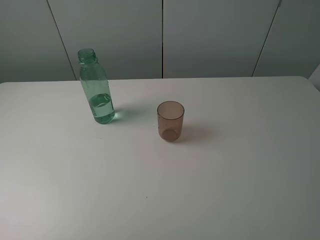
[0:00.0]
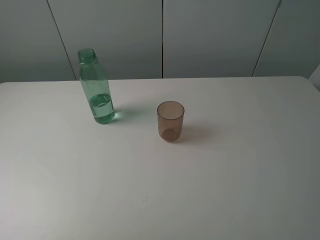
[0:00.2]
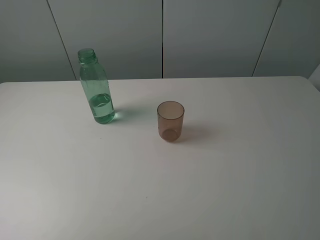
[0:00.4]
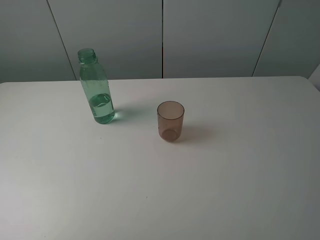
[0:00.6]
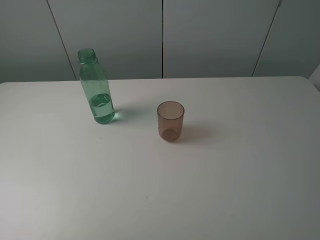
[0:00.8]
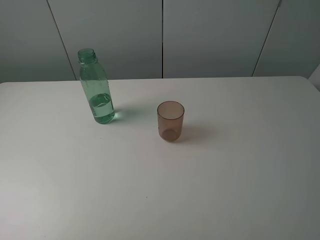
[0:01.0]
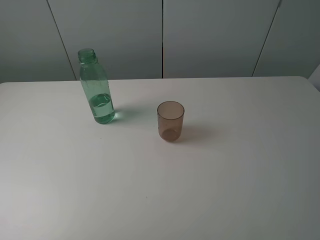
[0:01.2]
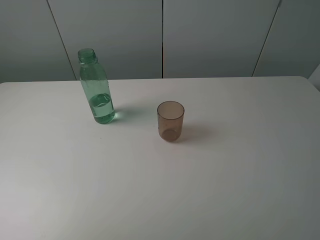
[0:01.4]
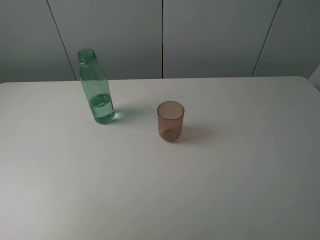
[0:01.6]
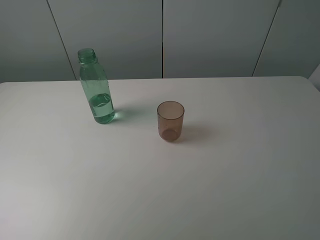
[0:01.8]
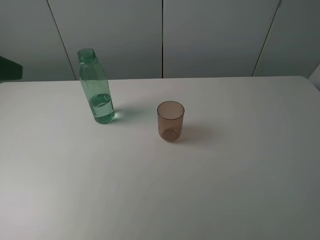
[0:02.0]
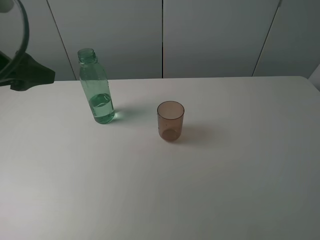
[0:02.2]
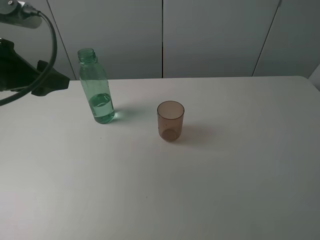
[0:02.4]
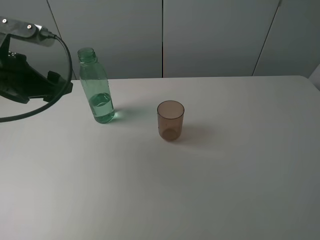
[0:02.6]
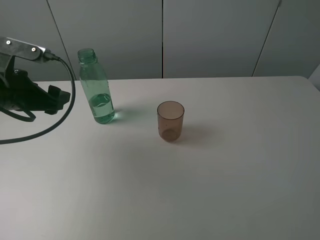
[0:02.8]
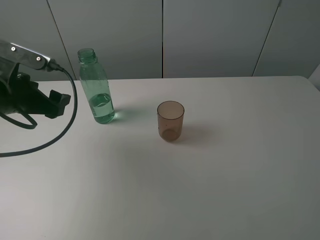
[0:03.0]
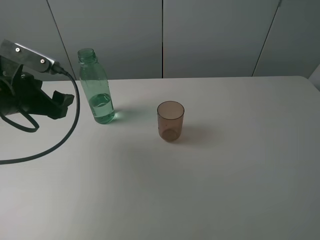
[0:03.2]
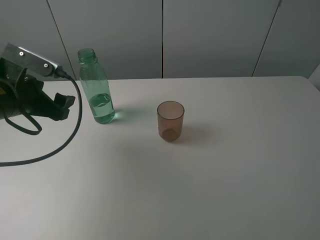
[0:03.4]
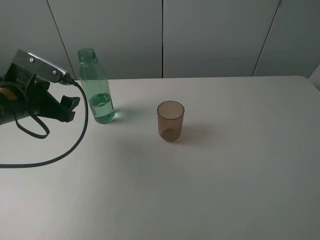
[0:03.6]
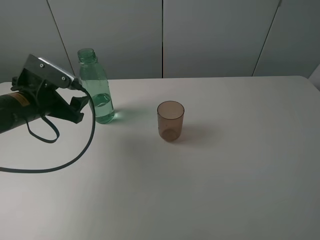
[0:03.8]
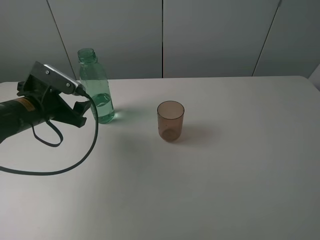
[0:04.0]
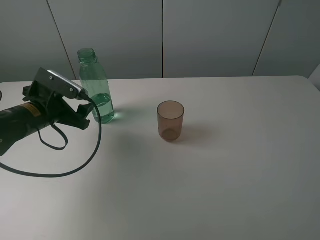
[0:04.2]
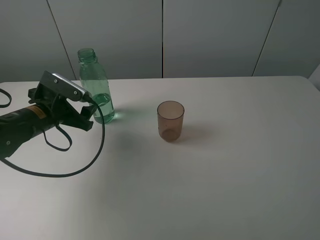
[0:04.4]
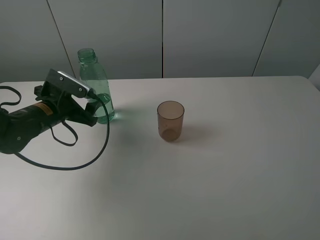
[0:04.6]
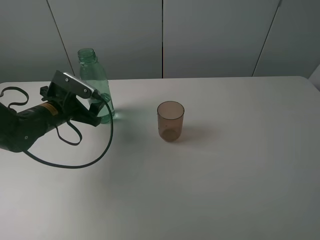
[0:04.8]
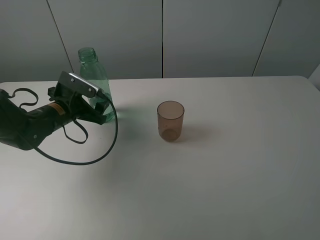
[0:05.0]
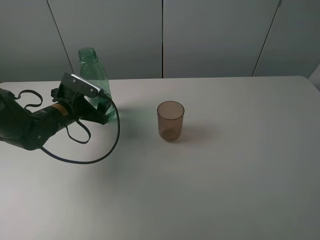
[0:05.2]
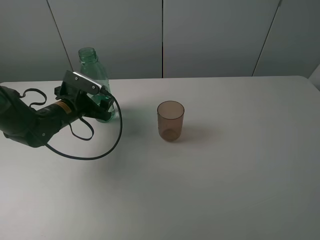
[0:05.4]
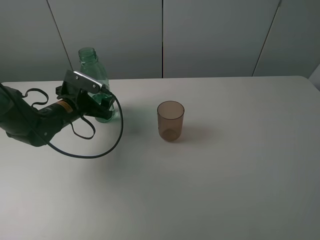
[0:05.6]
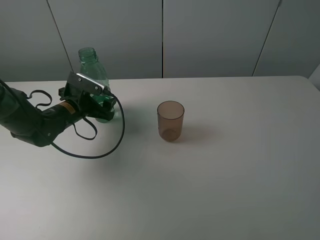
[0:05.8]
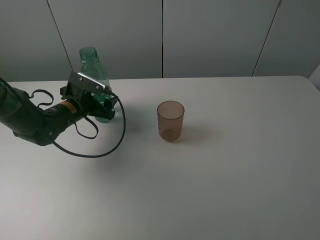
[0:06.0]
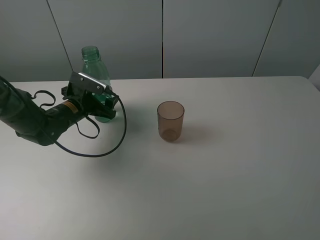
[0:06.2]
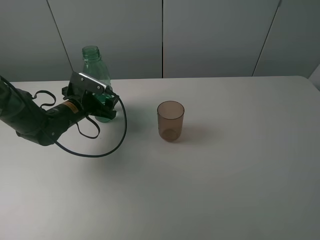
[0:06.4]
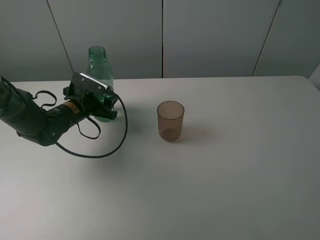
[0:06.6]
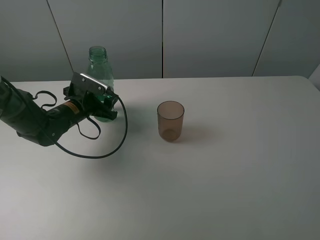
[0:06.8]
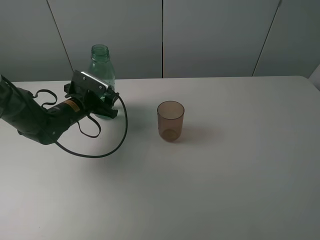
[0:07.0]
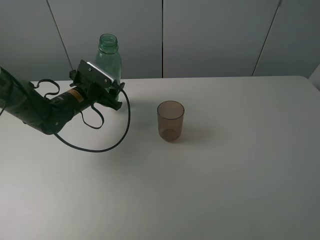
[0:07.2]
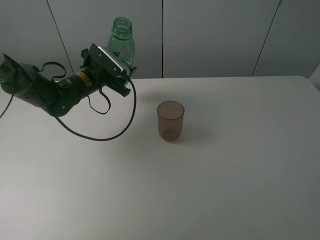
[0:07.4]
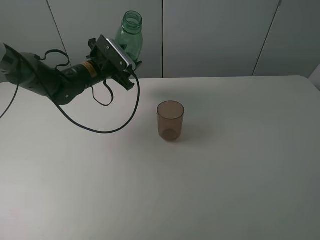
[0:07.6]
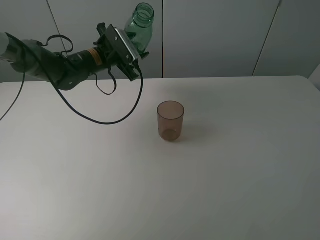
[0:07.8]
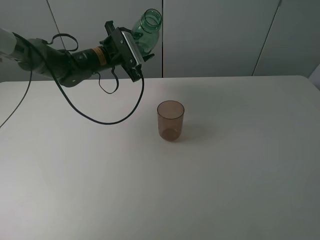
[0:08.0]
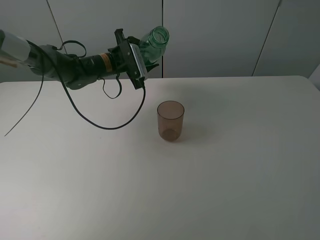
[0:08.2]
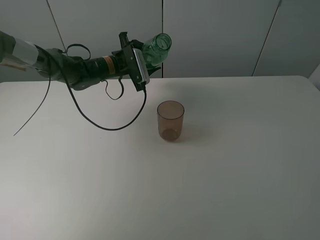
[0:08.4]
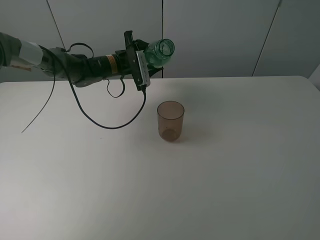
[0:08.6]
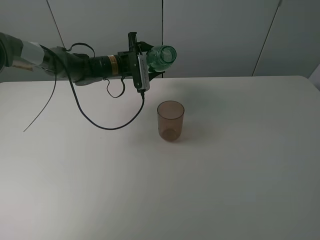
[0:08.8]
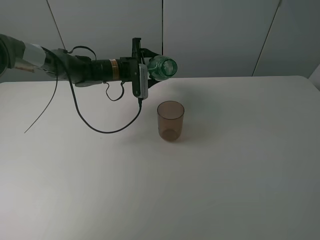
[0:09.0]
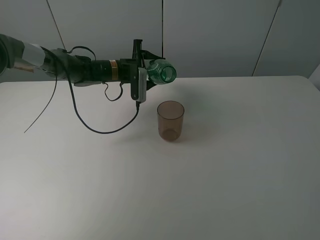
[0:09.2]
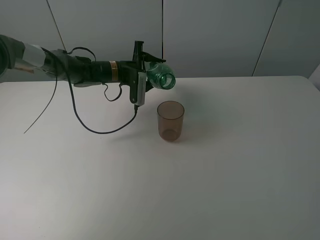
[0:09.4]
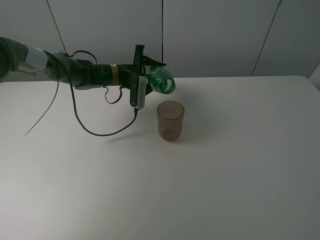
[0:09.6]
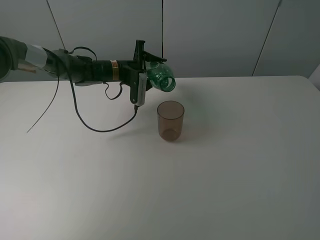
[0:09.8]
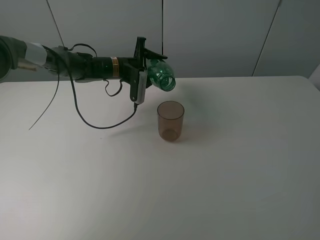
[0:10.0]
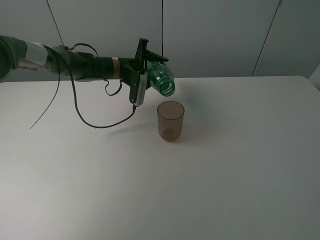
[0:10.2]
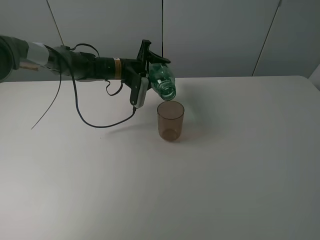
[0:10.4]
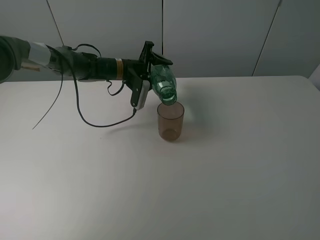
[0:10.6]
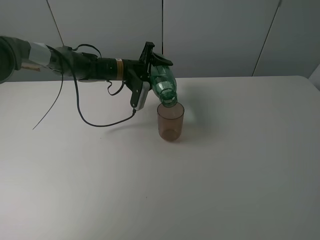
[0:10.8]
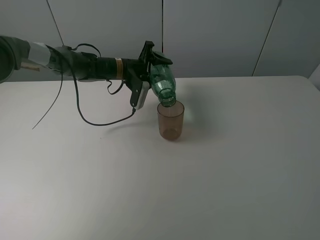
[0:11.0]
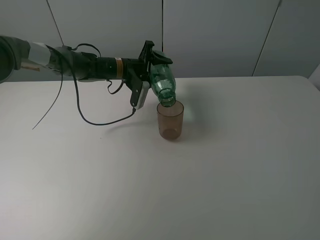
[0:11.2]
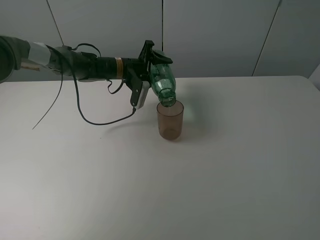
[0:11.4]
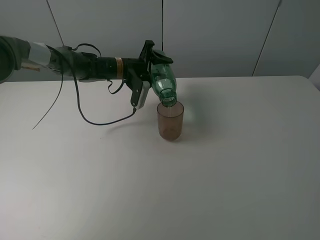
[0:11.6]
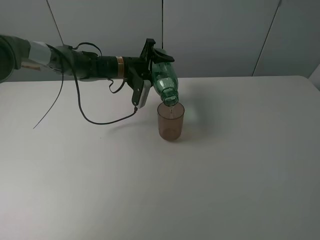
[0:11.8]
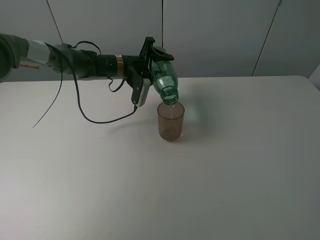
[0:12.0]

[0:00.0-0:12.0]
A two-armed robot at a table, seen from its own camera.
Task of the whole recording: pick up the bottle filled with water and pour it into the pink cup.
Step, 0:00.0 to 0:06.4: Grasp the green bottle with the left gripper.
0:01.6 to 0:03.0: The left gripper travels forward and downward by approximately 20 cm.
0:03.0 to 0:04.4: The left gripper is displaced downward by approximately 10 cm.
0:04.4 to 0:06.0: The left gripper shifts about 5 cm forward.
0:06.0 to 0:07.6: The left gripper moves upward, forward and to the right, about 10 cm, and closes its fingers.
0:07.6 to 0:09.0: The left gripper shifts approximately 5 cm to the right.
0:10.4 to 0:12.0: There are only small adjustments of the grippers.

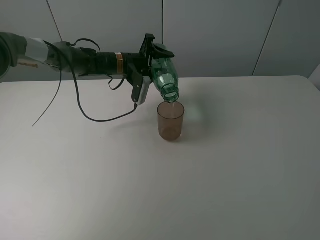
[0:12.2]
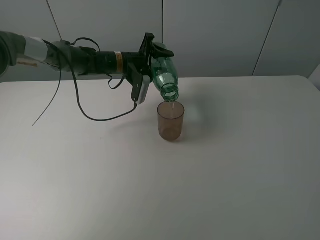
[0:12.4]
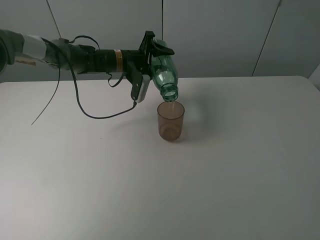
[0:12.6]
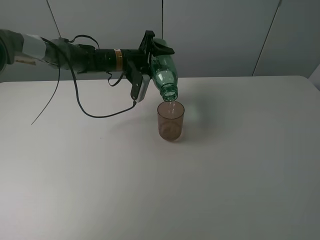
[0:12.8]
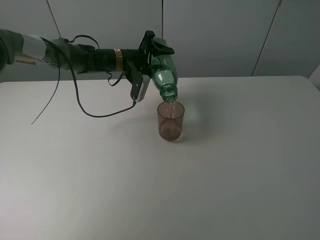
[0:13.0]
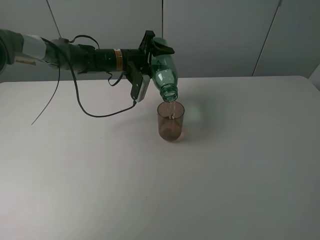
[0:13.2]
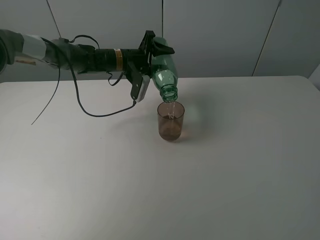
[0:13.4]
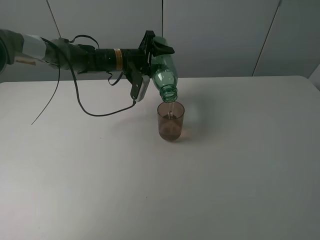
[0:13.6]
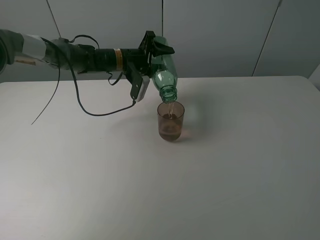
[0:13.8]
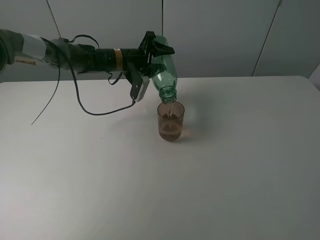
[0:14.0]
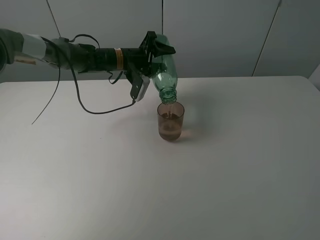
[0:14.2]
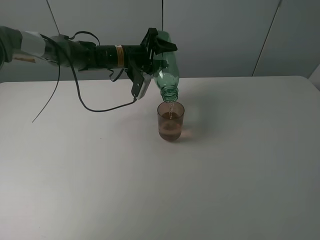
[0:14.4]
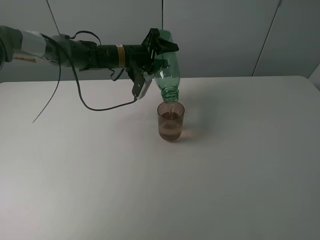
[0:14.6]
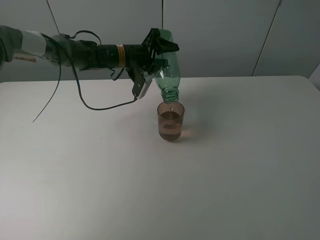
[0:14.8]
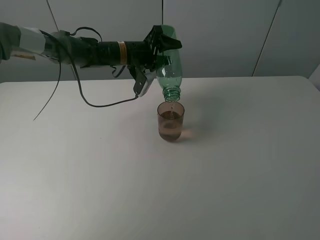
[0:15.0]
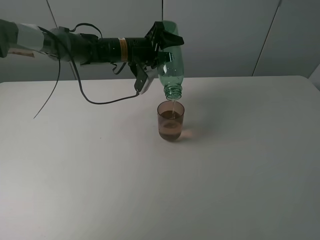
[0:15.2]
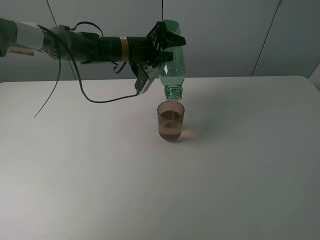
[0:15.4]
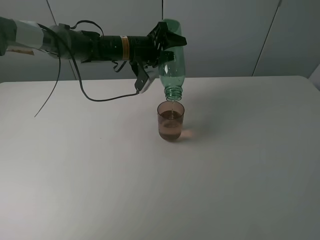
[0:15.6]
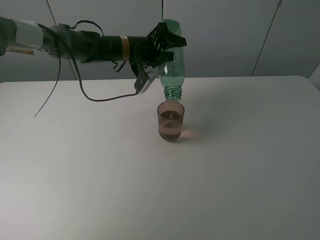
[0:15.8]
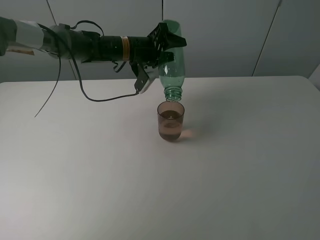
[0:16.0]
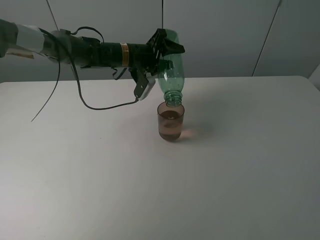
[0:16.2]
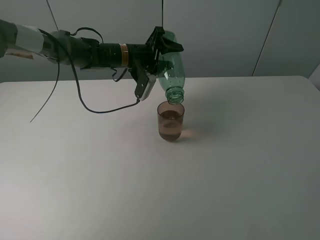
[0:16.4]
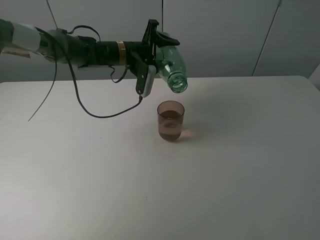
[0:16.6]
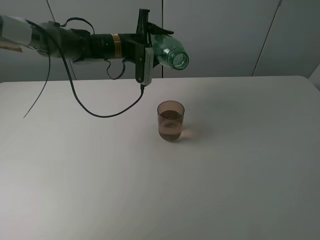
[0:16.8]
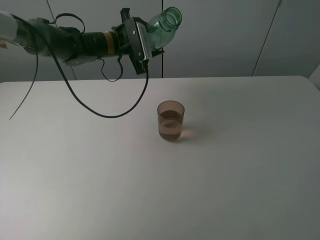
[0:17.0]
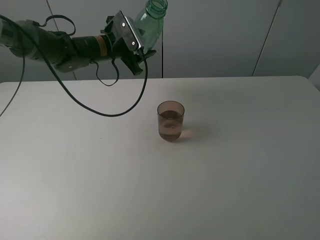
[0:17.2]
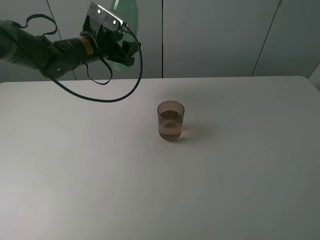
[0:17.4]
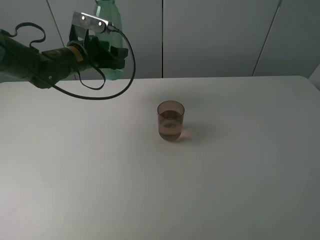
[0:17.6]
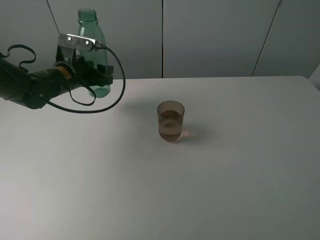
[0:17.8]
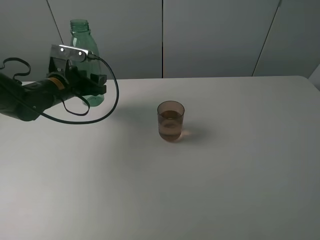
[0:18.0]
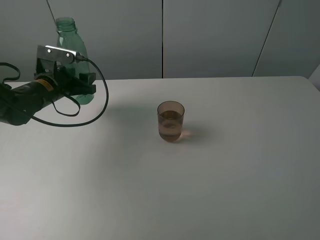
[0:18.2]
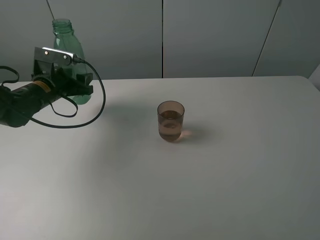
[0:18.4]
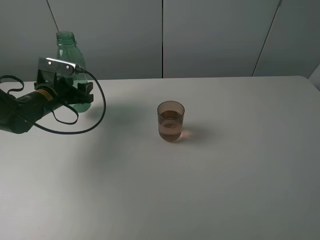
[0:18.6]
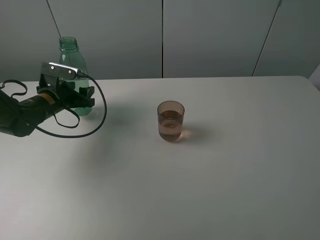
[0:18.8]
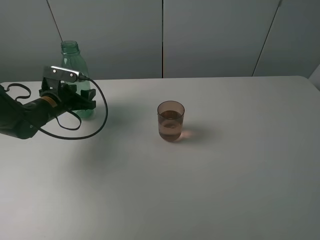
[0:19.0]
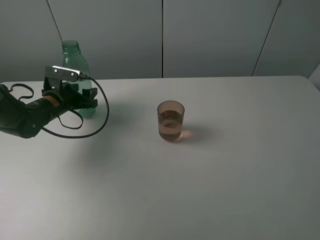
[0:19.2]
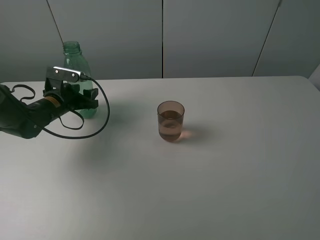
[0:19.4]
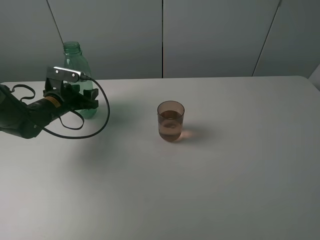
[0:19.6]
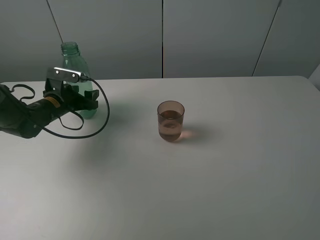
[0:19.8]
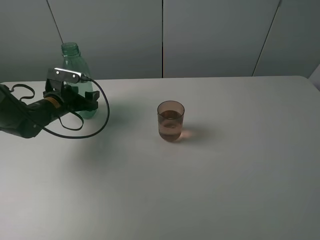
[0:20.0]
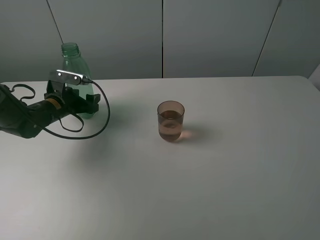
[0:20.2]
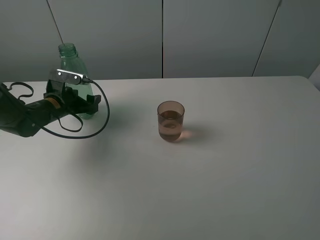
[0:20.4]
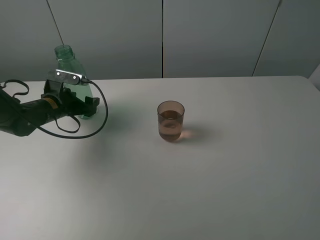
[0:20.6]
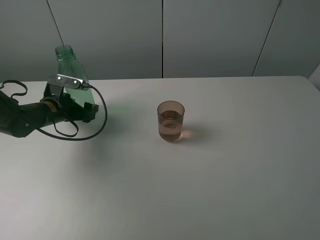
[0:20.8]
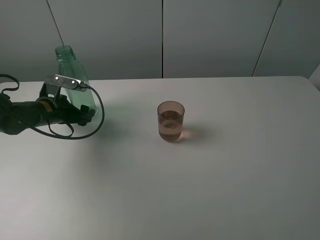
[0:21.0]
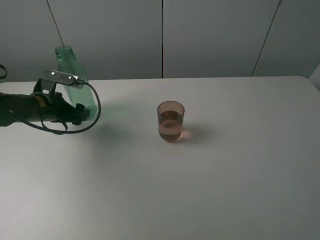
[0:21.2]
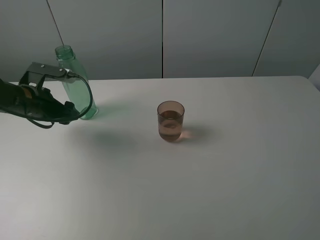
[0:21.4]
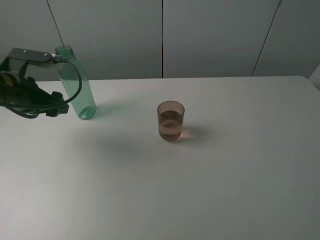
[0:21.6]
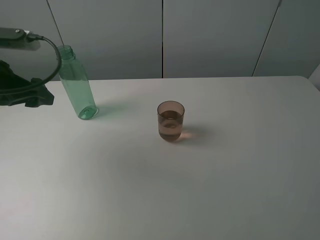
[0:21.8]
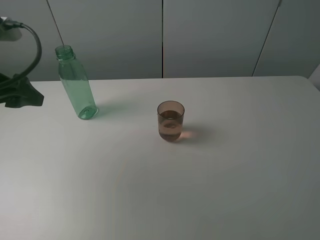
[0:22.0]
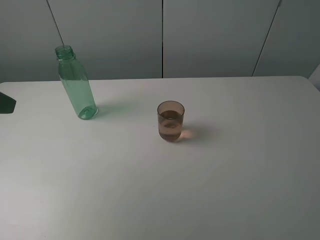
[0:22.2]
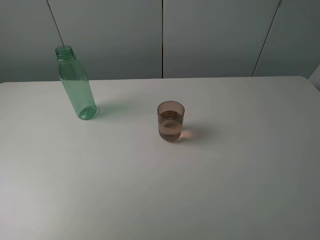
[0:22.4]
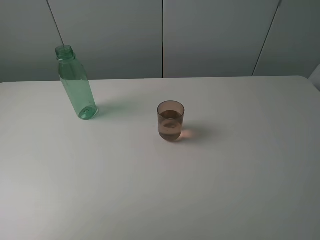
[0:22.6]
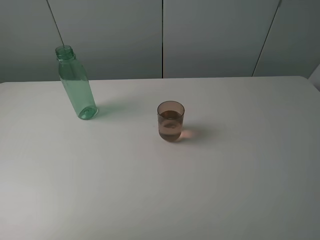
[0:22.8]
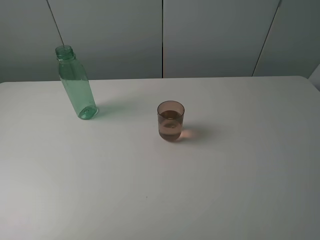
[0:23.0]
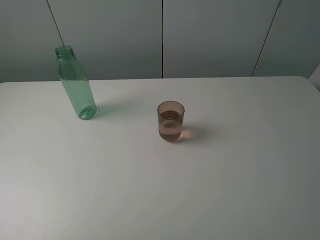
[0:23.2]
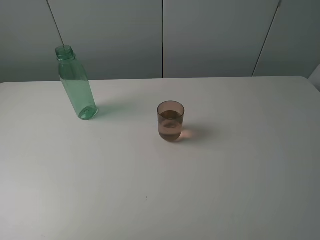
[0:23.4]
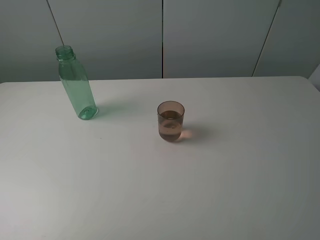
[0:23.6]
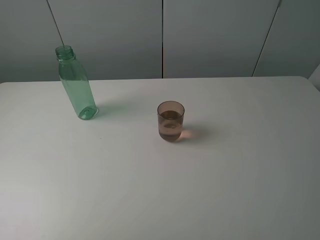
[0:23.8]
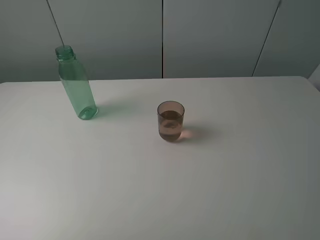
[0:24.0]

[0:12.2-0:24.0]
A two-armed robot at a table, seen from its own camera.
Task of the whole recording: pick up the bottle filled with water and pour it into the pink cup.
Step, 0:12.2 to 0:16.8: Pour water from green bottle to pink cup with the left gripper.
Step, 0:17.0 to 0:21.2: Place the green bottle with the left gripper.
0:12.2 to 0:13.6: The grippers stay close to where they were, moving slightly.
0:13.6 to 0:15.2: The grippers stay close to where they were, moving slightly.
0:16.6 to 0:18.2: The left gripper goes approximately 20 cm to the left and backward.
0:18.2 to 0:19.6: The left gripper is displaced downward by some 5 cm.
0:19.6 to 0:21.0: The left gripper opens.
0:21.0 to 0:22.6: The left gripper is displaced backward and upward by approximately 35 cm.
